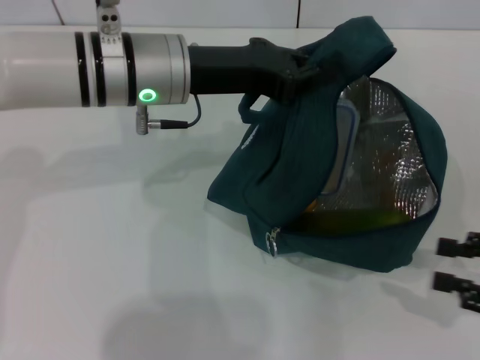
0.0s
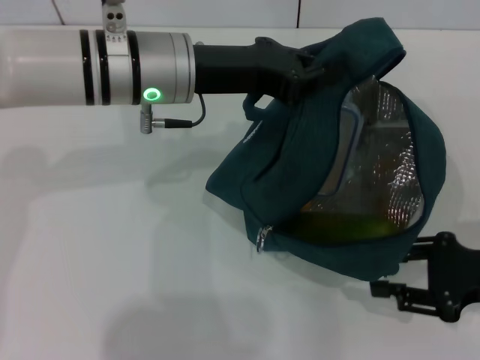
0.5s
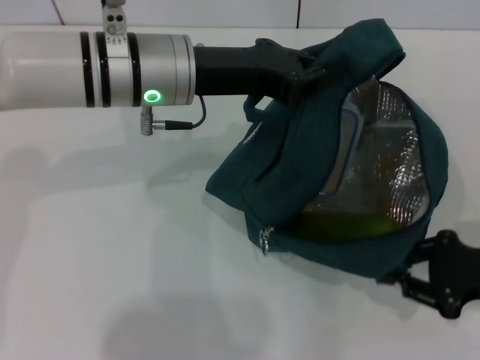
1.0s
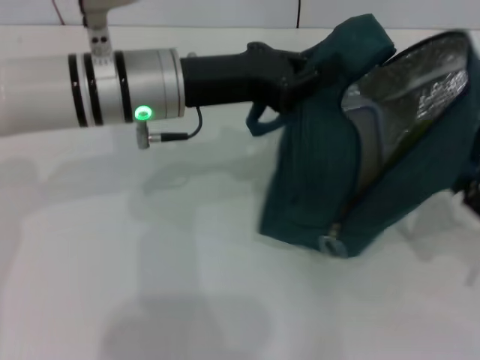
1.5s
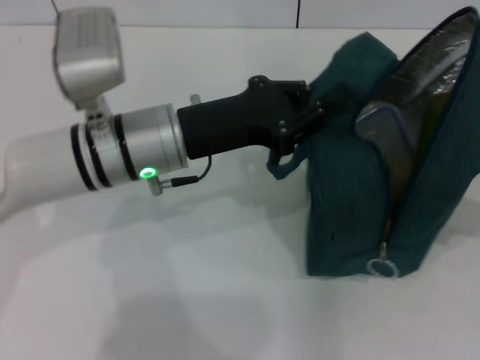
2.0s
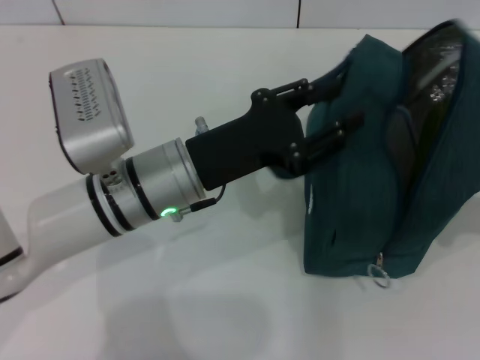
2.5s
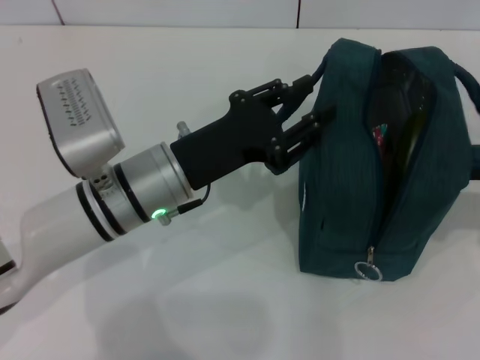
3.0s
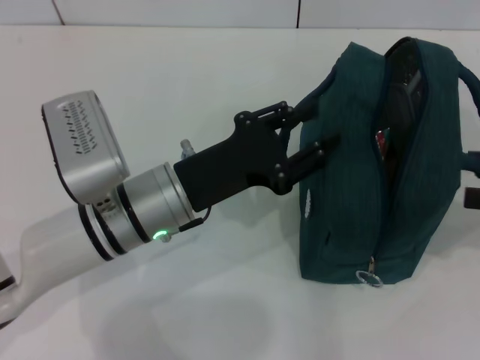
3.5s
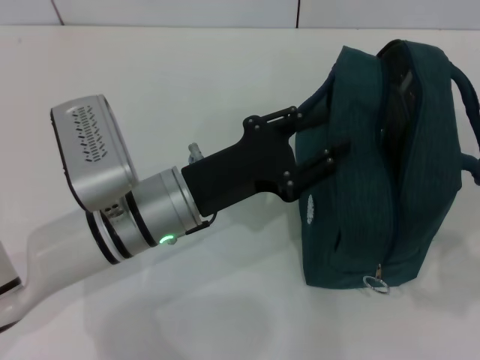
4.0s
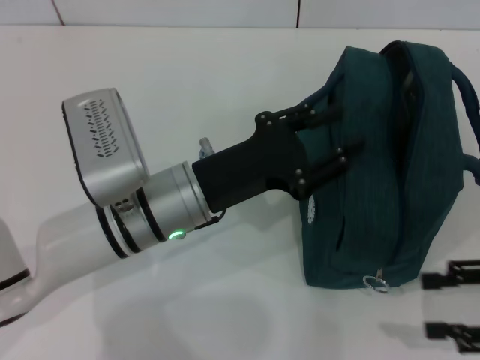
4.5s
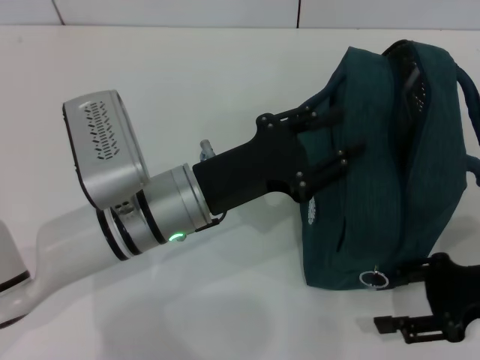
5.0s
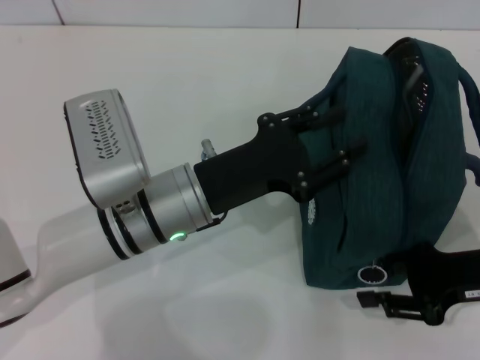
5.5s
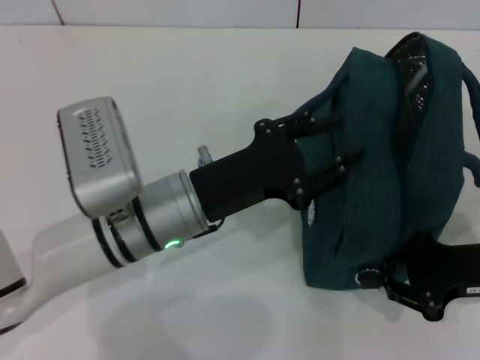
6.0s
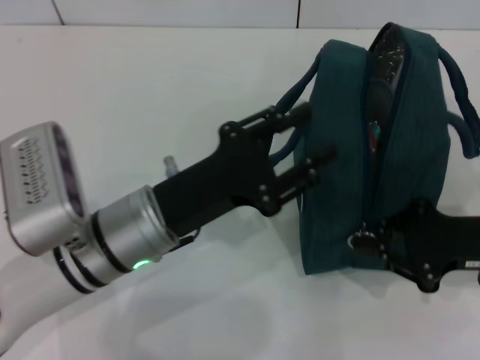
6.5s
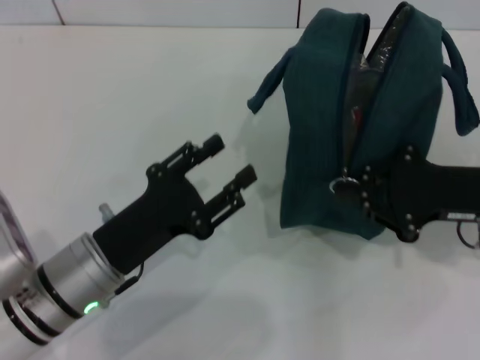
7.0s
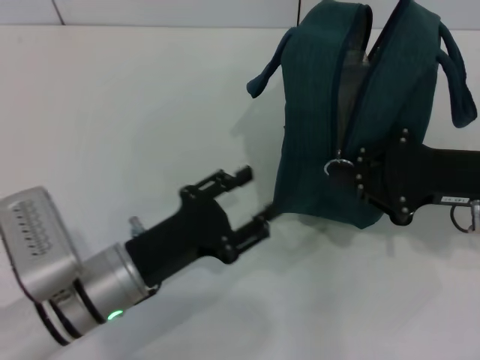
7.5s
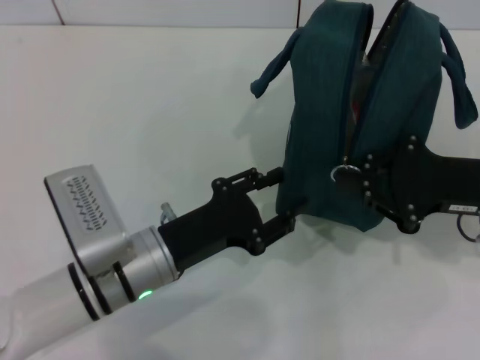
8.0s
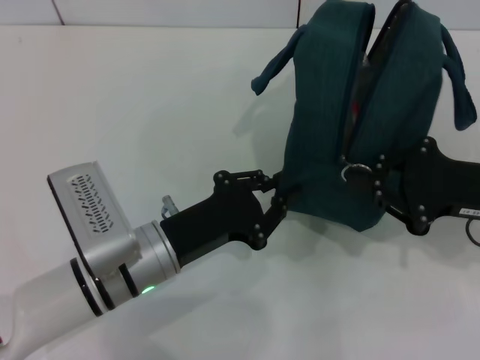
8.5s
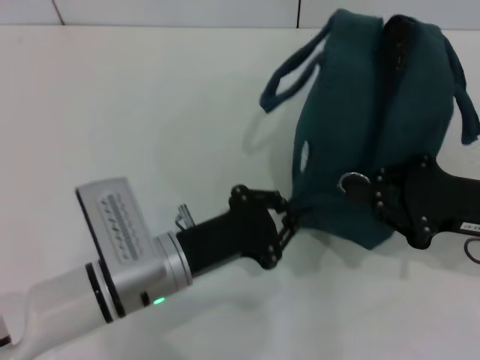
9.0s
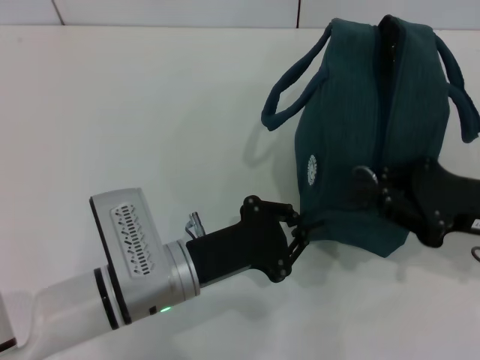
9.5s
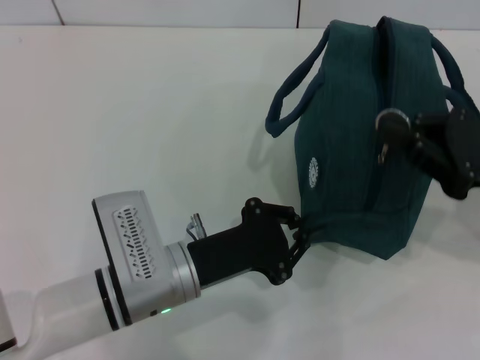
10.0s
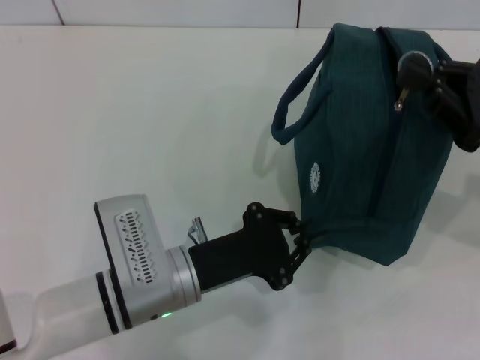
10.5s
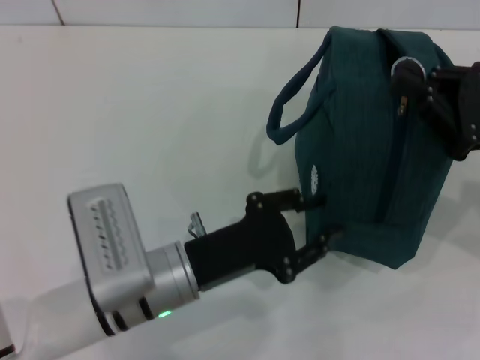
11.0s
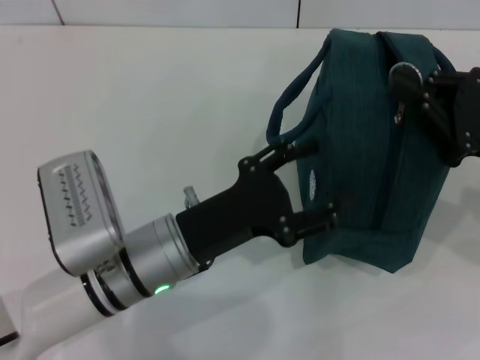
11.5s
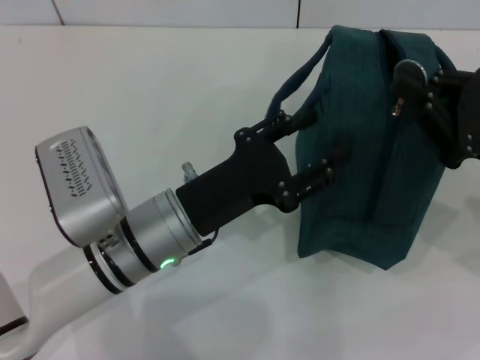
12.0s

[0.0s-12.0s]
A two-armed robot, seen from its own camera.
Step, 0.0s to 4.0s: Hold the lunch bag with your right hand.
Step, 4.5s to 7.0s: Hold the lunch bag with your left hand.
0.0s to 2.0s: The right gripper heads forward and upward, covering approximately 10 cm, and closes up, while the left gripper goes some 5 cm downward.
2.0s to 4.0s: The right gripper moves backward, roughly 5 cm, and opens. The left gripper changes place by approximately 5 cm, and opens its fingers.
4.0s to 6.0s: The right gripper heads to the left, downward and forward, covering some 15 cm, and closes.
6.0s to 8.0s: The right gripper shifts by some 5 cm. The left gripper moves downward, about 5 cm.
8.0s to 10.0s: The left gripper closes.
10.0s to 12.0s: The left gripper opens up.

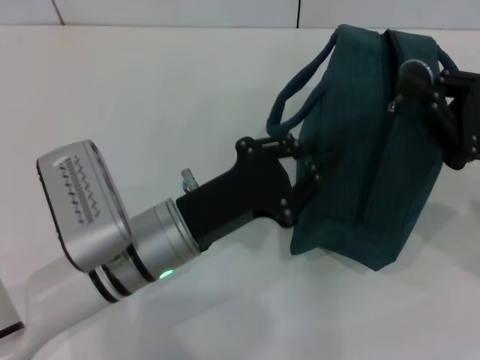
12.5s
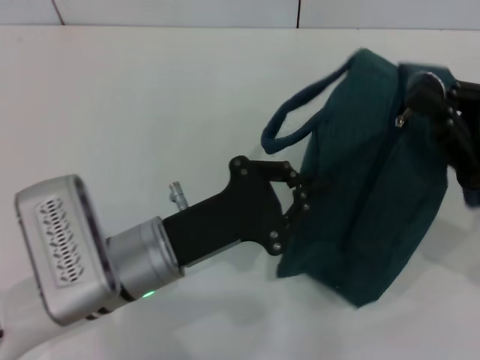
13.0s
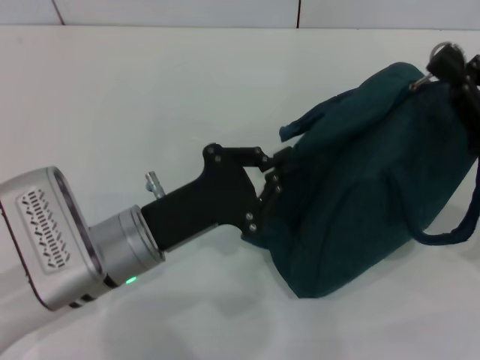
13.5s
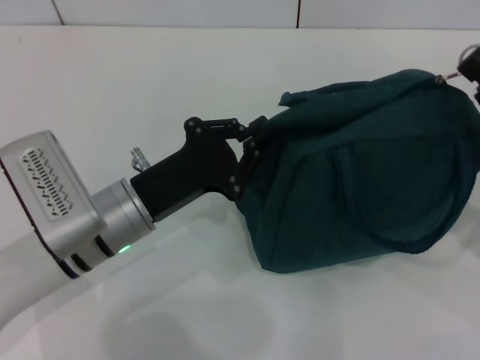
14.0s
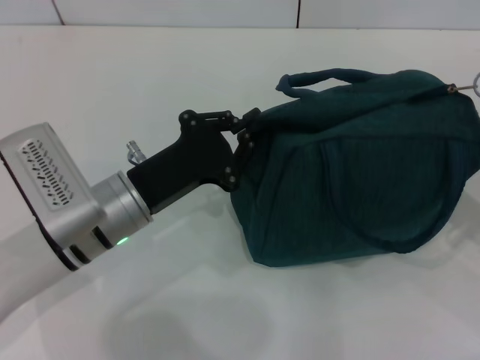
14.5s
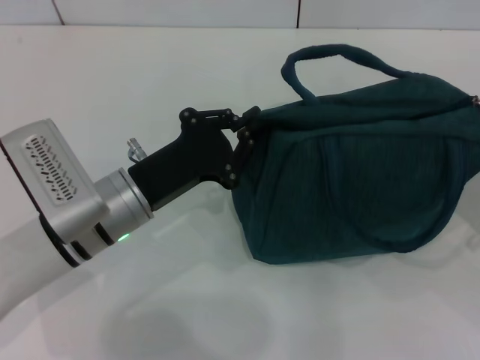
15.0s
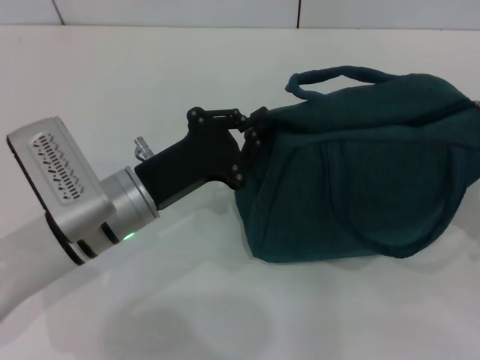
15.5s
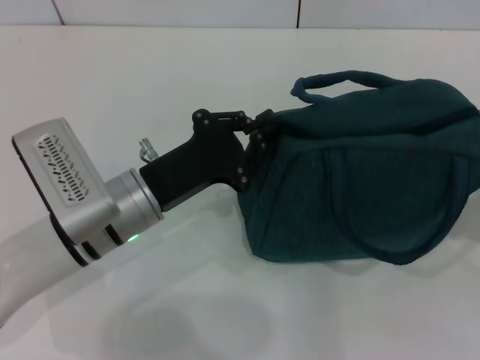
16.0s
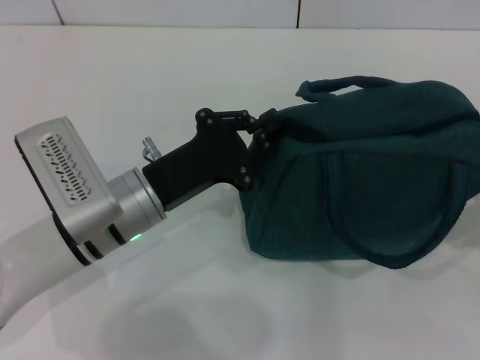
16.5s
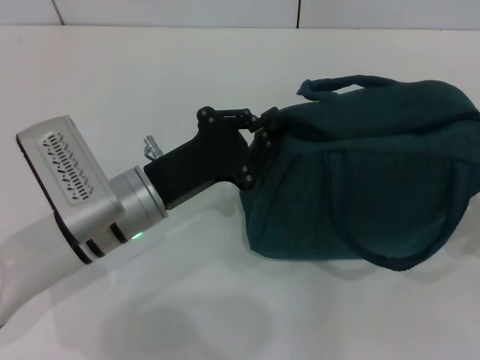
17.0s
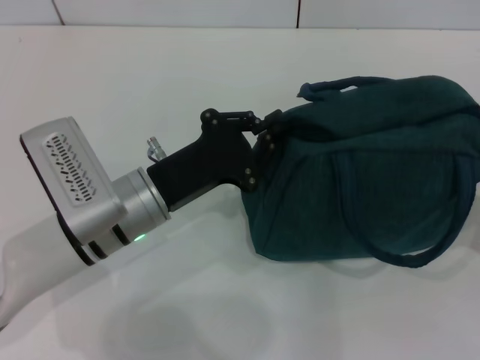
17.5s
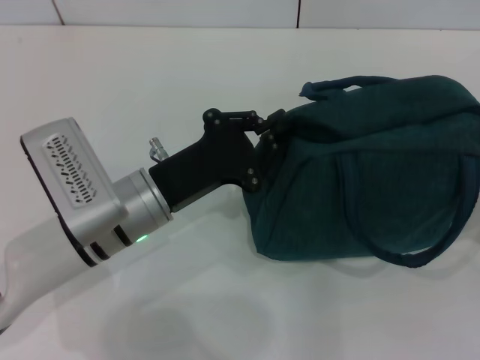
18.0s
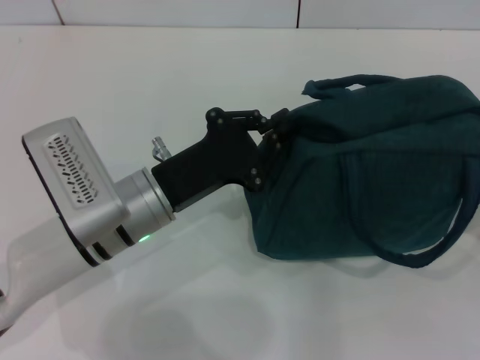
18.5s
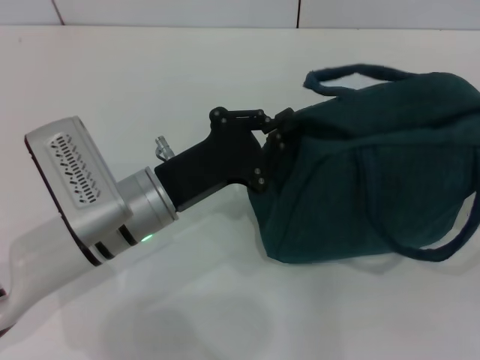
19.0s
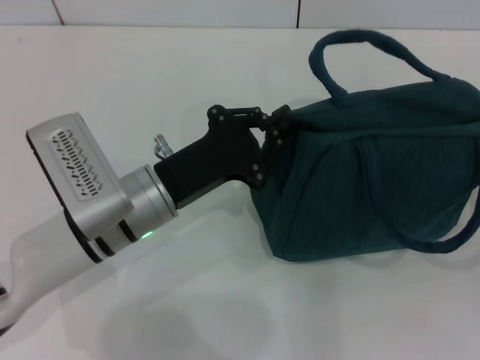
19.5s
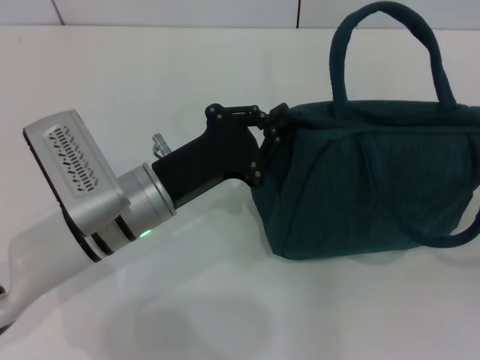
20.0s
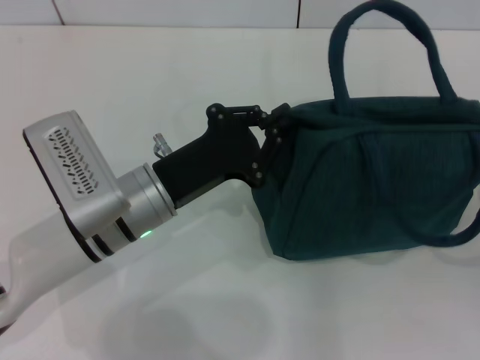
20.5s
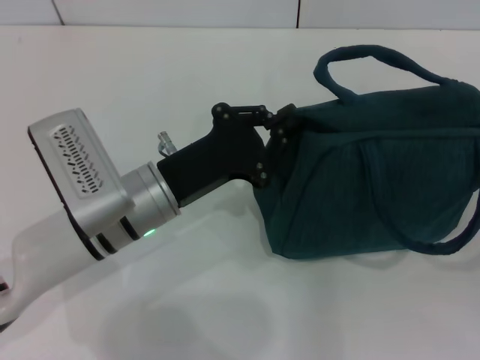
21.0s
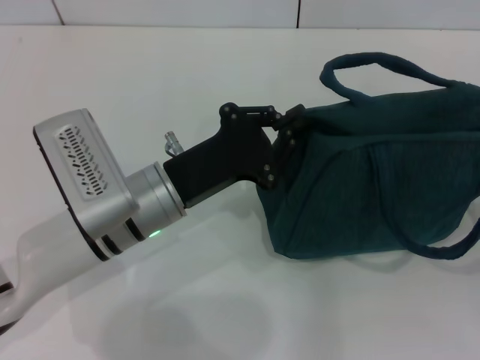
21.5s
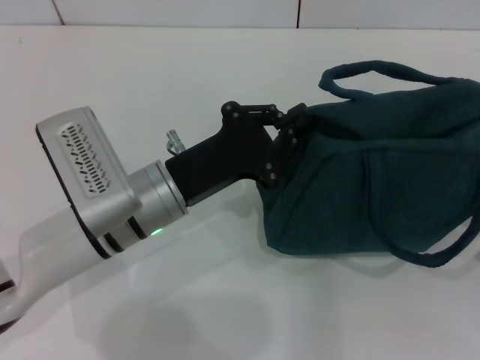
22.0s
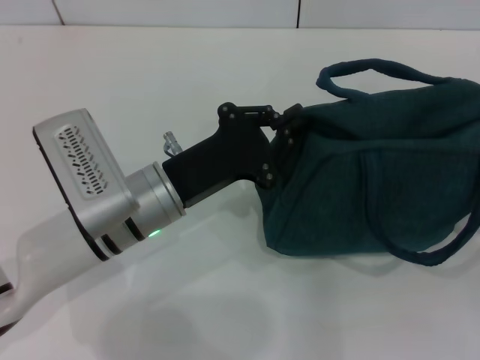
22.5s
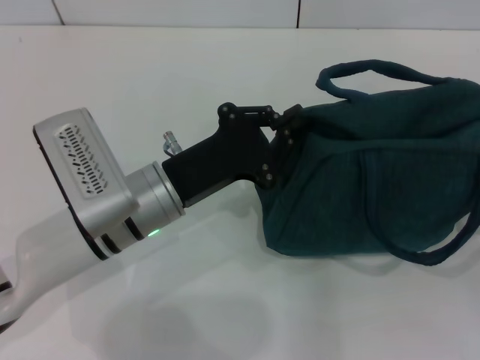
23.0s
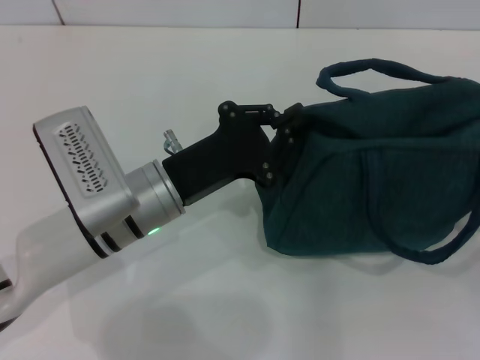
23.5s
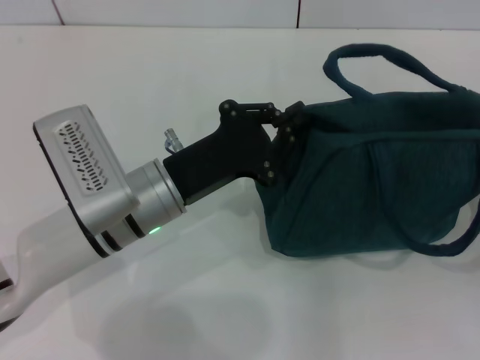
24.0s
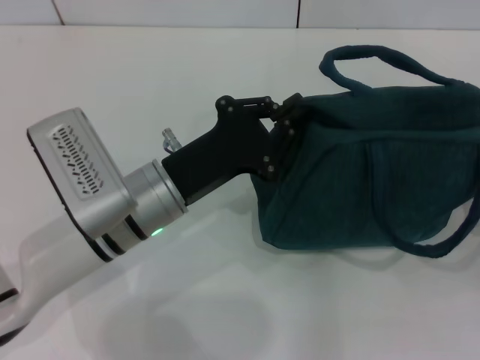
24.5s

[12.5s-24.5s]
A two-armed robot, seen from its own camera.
Step, 12.5s to 24.5s: Zip up the lunch bag with your right hand.
12.5s to 14.5s: The right gripper is displaced to the right by about 5 cm, while the left gripper shifts by some 5 cm, and closes its fingers.
14.5s to 16.5s: The right gripper ends up about 5 cm from where it was, and opens up.
16.5s to 22.5s: The grippers make only small movements.
22.5s to 24.5s: The grippers stay close to where they were, moving slightly.

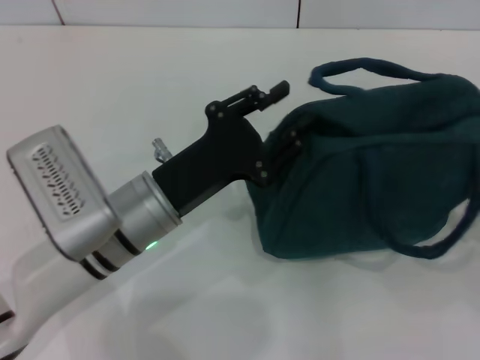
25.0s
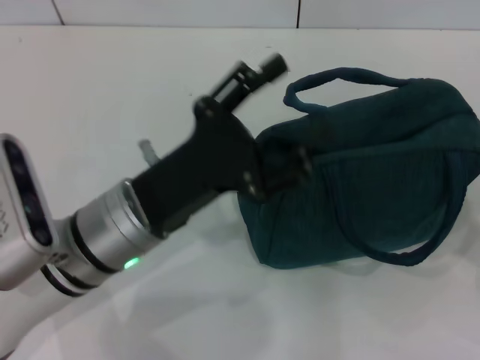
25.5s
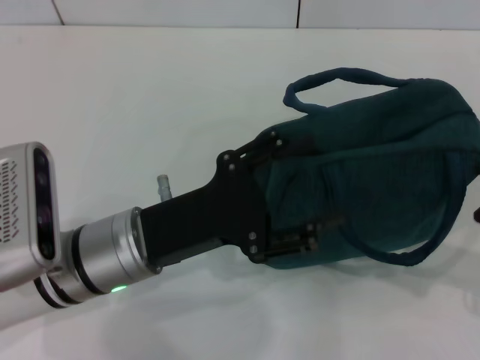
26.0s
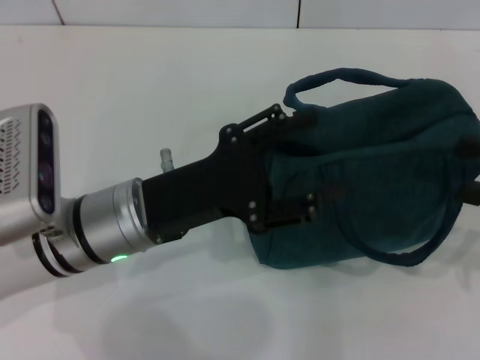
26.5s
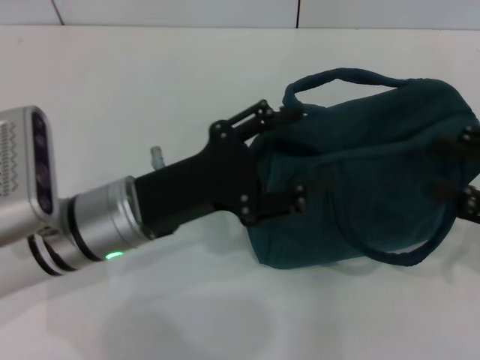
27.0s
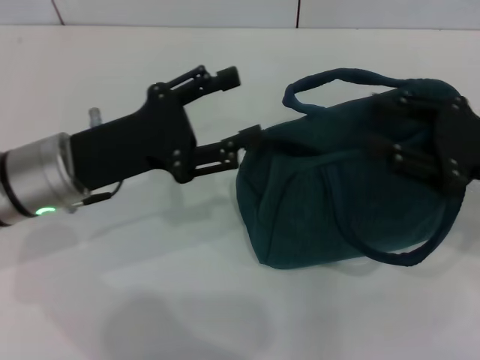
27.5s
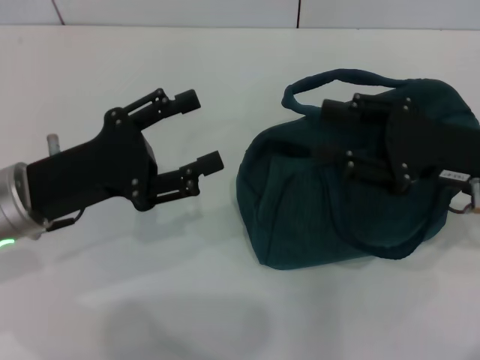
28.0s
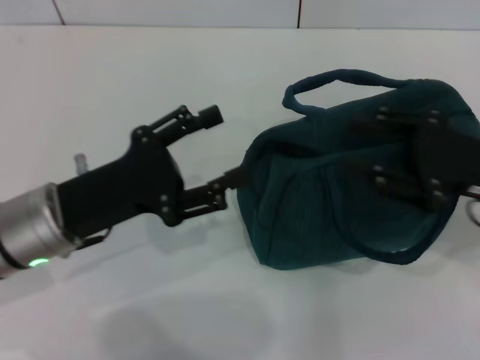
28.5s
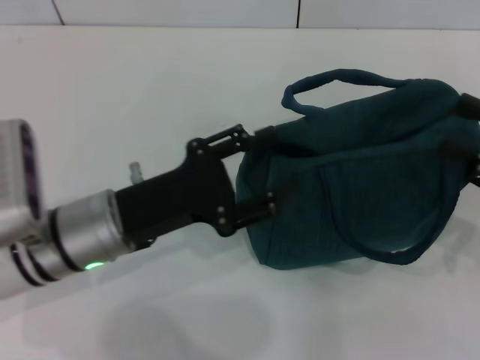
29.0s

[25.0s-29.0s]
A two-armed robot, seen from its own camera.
25.0s to 27.0s: The left gripper opens its fingers. The right gripper is displaced upward by about 10 cm.
27.0s to 29.0s: The left gripper moves about 10 cm to the left and comes back, while the right gripper reaches roughly 10 cm to the left, then returns.
